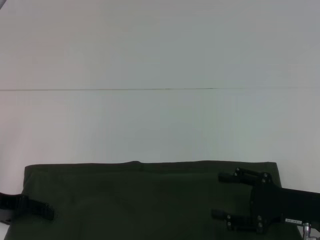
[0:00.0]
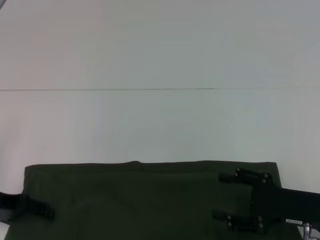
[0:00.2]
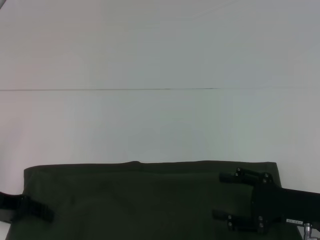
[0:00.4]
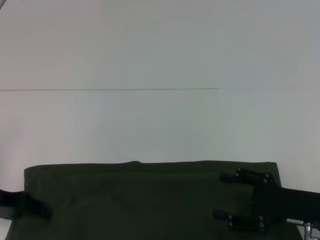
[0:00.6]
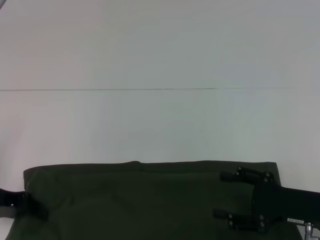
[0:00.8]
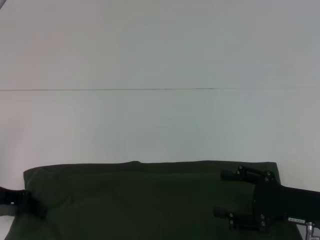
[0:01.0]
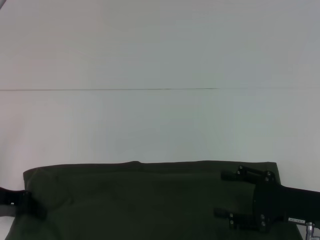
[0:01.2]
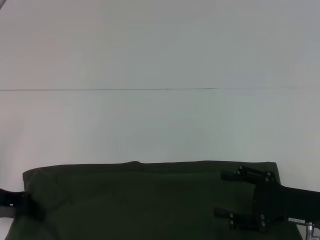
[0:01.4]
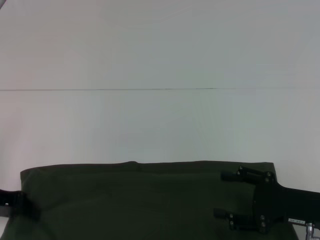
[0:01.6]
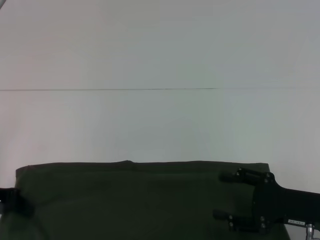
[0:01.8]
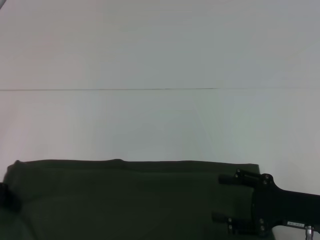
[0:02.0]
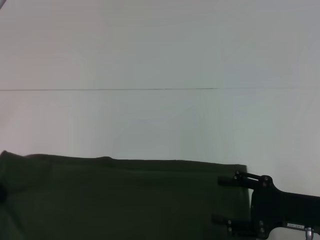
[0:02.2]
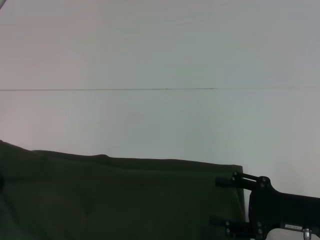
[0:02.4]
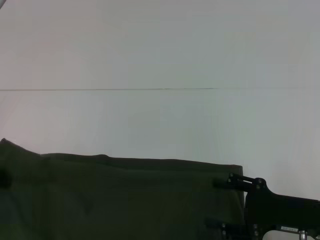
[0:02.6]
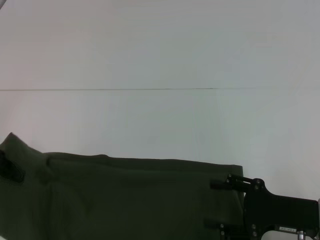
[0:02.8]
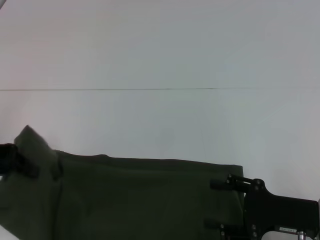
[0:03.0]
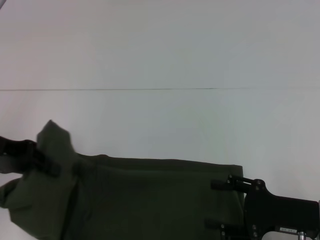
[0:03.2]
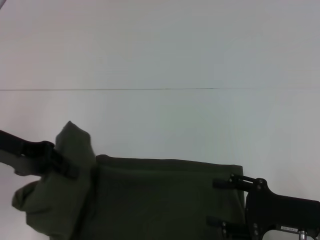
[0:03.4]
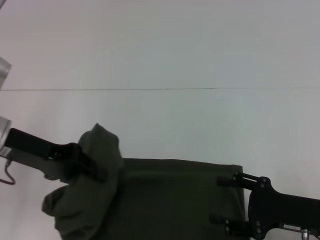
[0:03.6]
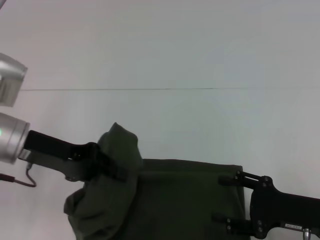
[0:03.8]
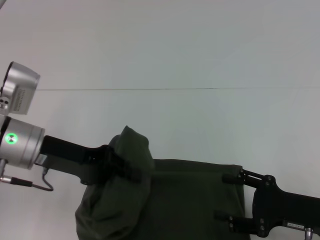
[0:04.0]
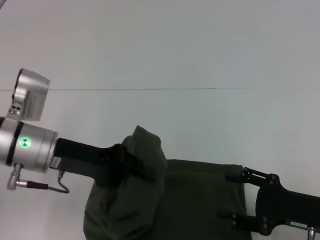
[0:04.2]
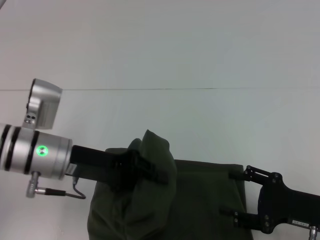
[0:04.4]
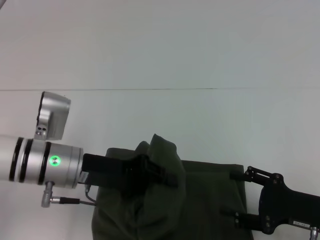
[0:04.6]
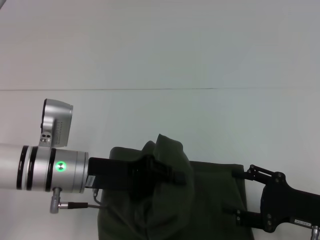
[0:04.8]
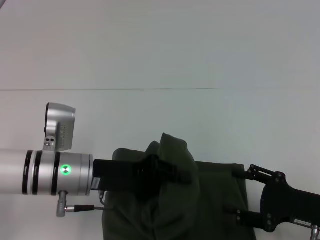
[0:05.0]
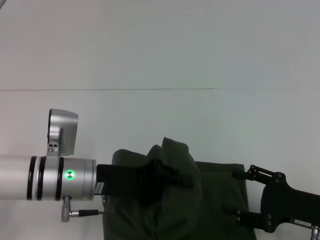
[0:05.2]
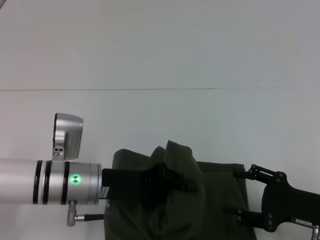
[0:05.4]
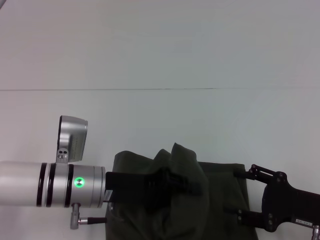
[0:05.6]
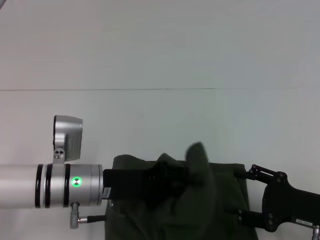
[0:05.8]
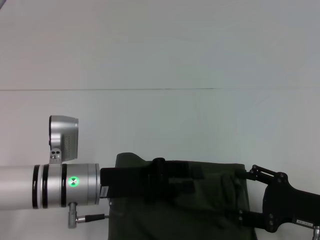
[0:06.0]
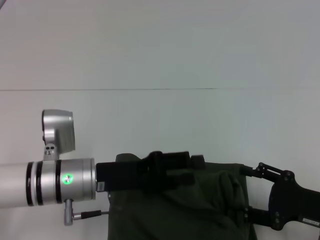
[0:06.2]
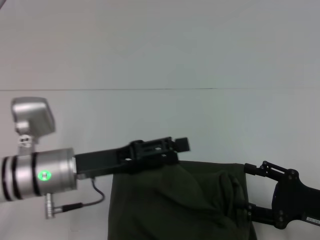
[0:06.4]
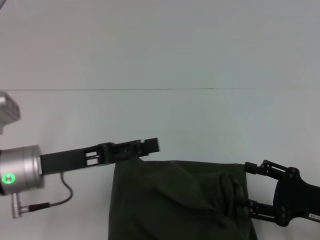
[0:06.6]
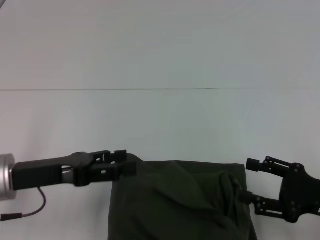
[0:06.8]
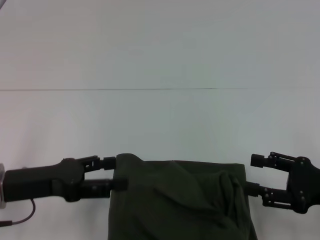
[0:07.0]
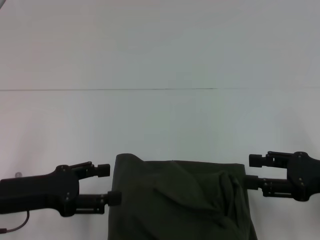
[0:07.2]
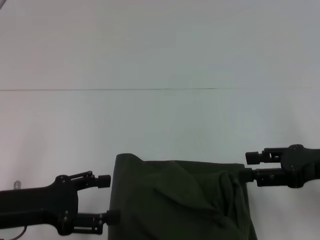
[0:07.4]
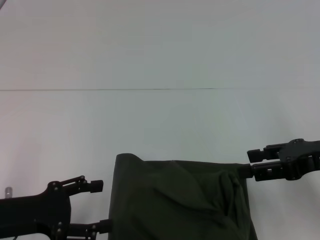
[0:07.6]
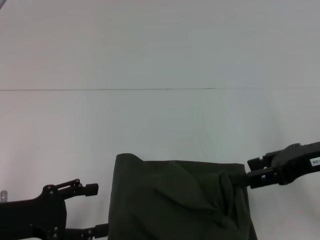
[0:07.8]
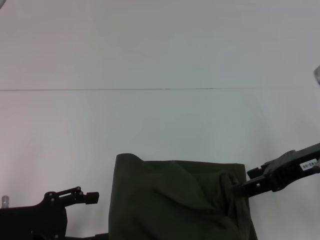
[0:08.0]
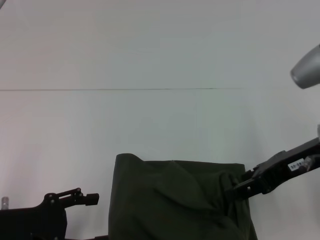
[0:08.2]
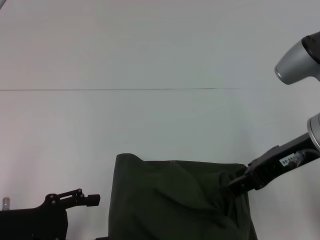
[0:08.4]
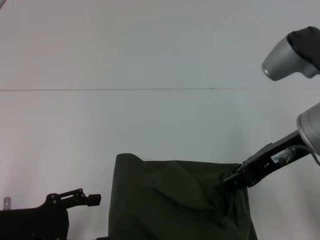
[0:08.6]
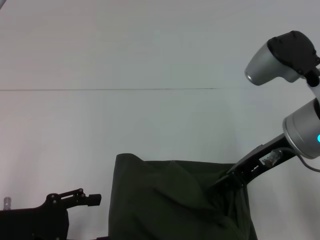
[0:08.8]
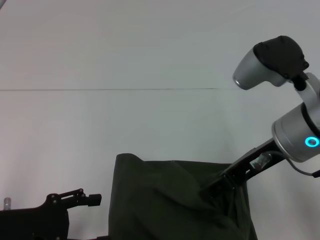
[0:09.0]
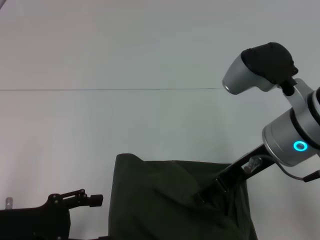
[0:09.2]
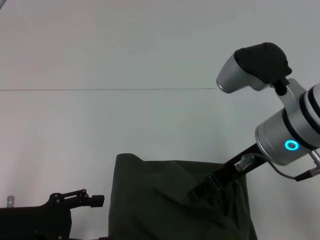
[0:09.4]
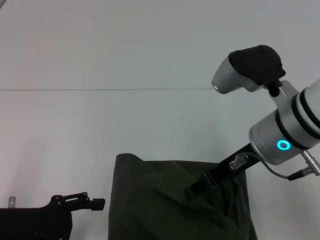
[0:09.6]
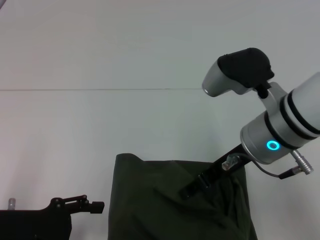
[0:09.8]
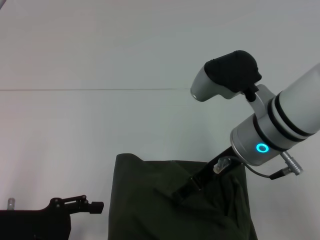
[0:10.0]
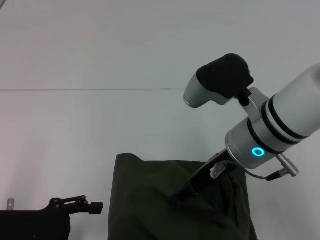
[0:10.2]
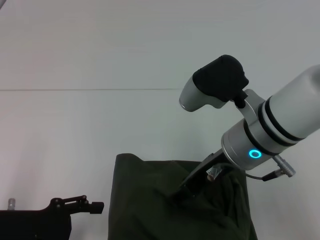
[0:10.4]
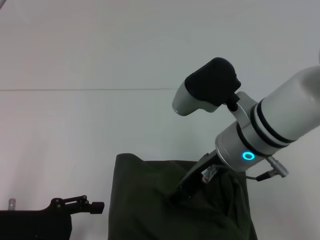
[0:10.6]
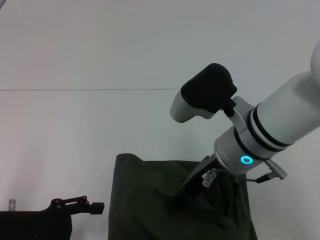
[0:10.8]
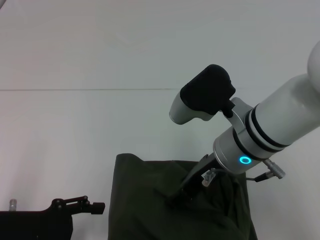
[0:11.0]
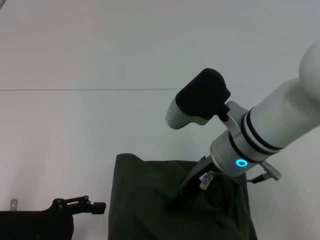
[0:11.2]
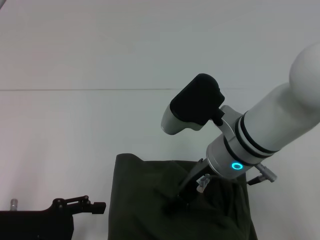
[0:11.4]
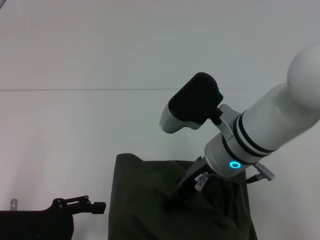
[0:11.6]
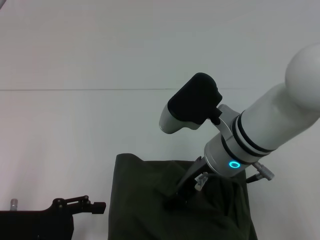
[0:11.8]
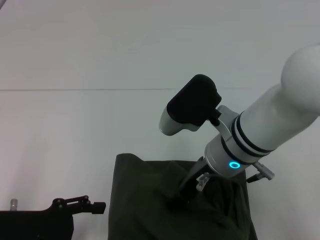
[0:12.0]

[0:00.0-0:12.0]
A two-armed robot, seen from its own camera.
Step, 0:00.0 to 0:06.4: Fold the clothes with your left hand.
0:00.0 to 0:01.6: The left gripper closes up.
0:01.6 to 0:03.0: The left gripper goes approximately 10 cm upward.
0:03.0 to 0:04.4: The left gripper travels to the right by about 15 cm.
0:04.4 to 0:06.0: The left gripper goes about 5 cm downward, and opens its fingers.
0:06.0 to 0:07.6: The right gripper is displaced upward by approximately 15 cm. The left gripper heads to the left and backward, covering about 15 cm, and opens its fingers.
0:07.6 to 0:09.0: The right gripper travels to the left by about 10 cm.
0:09.0 to 0:10.4: The right gripper is displaced to the left by about 5 cm.
0:10.4 to 0:12.0: The grippers stay close to where they were, moving slightly.

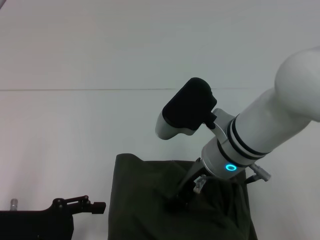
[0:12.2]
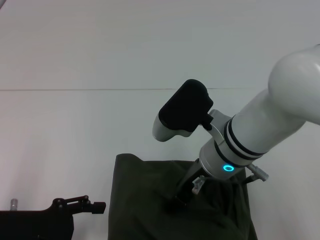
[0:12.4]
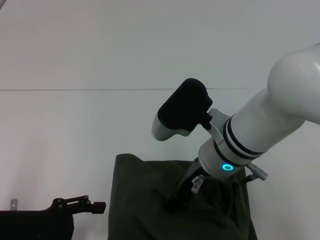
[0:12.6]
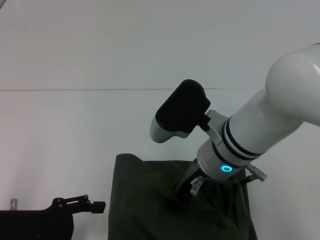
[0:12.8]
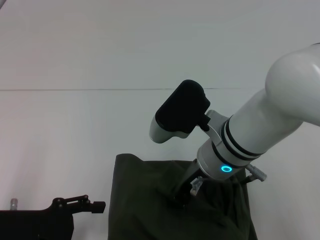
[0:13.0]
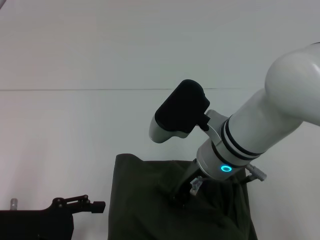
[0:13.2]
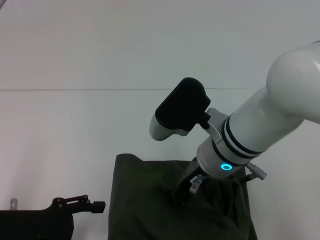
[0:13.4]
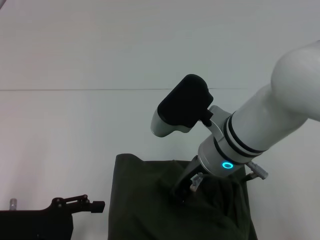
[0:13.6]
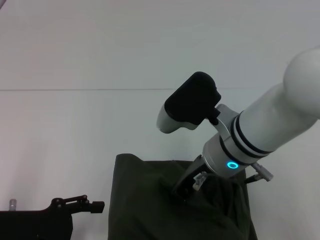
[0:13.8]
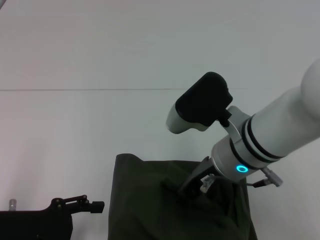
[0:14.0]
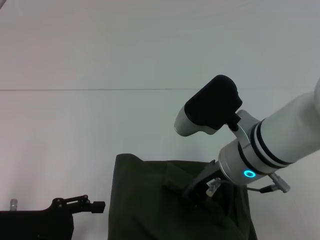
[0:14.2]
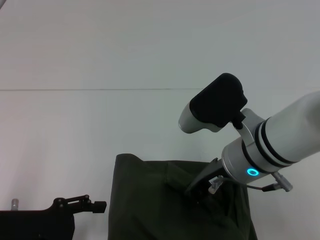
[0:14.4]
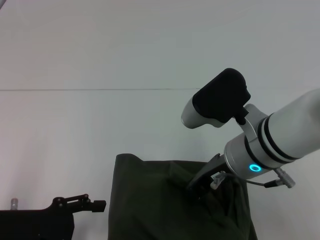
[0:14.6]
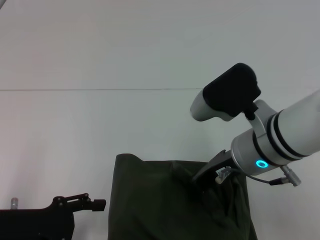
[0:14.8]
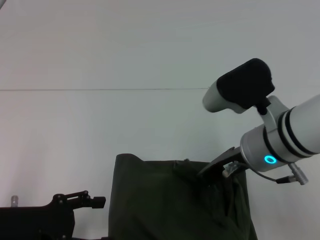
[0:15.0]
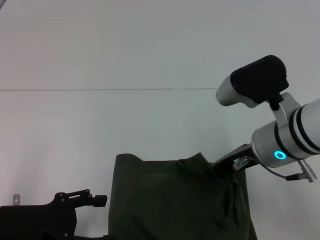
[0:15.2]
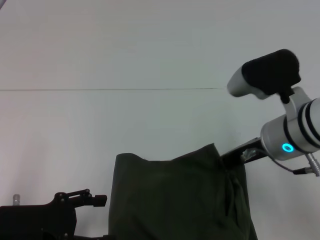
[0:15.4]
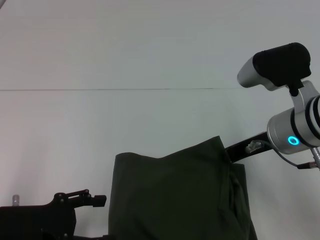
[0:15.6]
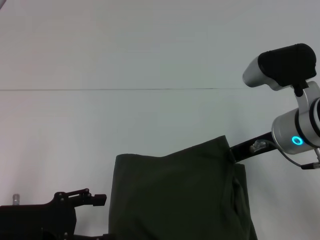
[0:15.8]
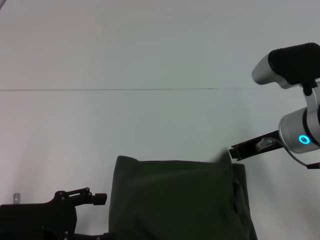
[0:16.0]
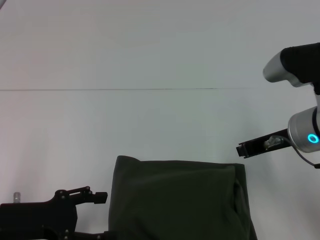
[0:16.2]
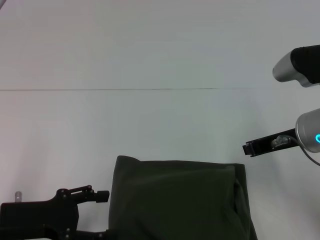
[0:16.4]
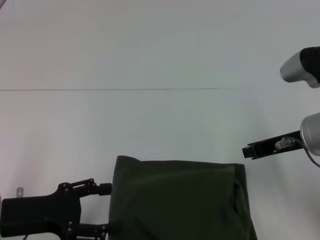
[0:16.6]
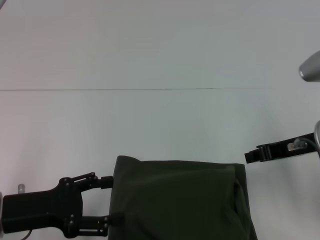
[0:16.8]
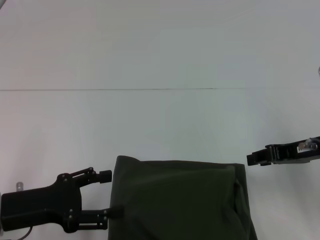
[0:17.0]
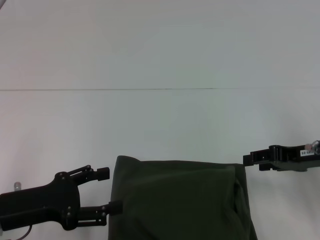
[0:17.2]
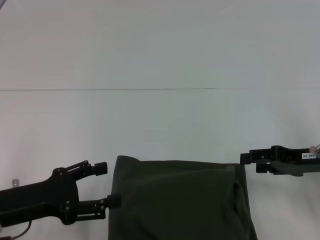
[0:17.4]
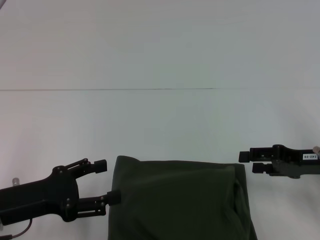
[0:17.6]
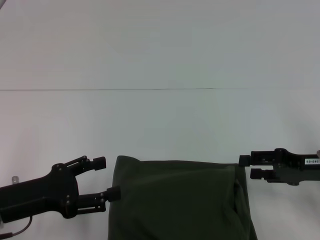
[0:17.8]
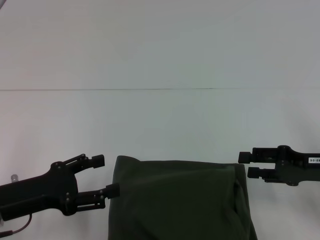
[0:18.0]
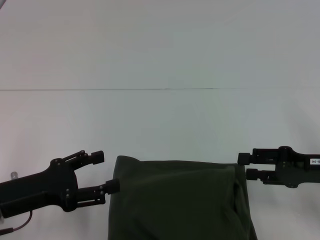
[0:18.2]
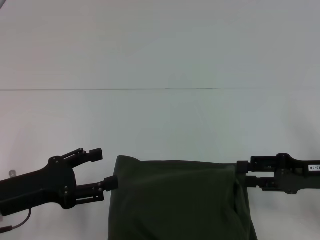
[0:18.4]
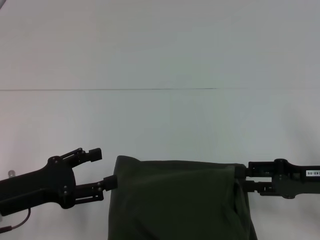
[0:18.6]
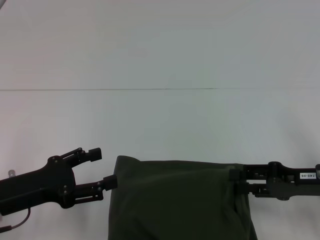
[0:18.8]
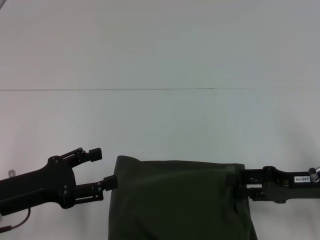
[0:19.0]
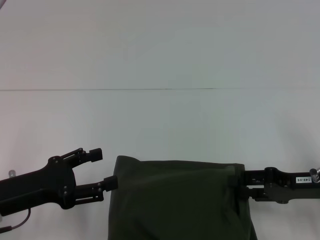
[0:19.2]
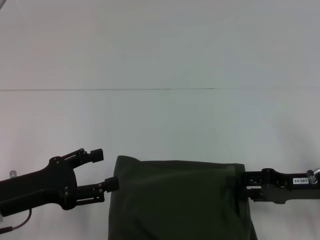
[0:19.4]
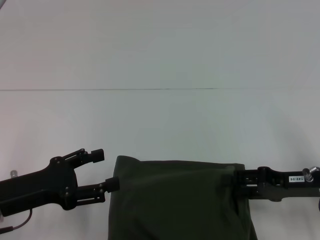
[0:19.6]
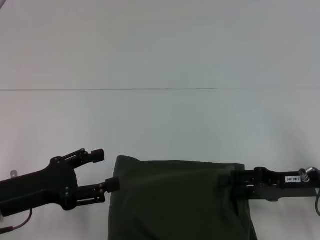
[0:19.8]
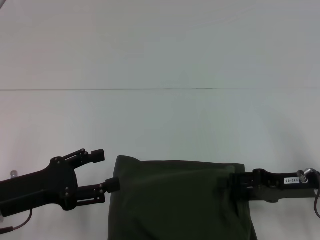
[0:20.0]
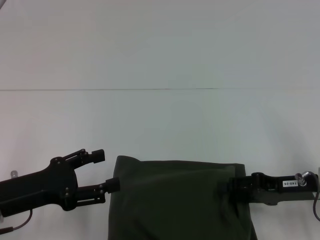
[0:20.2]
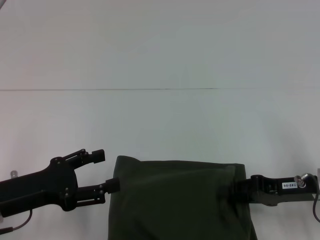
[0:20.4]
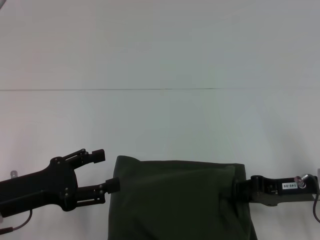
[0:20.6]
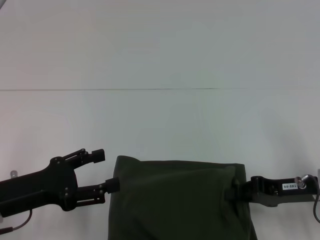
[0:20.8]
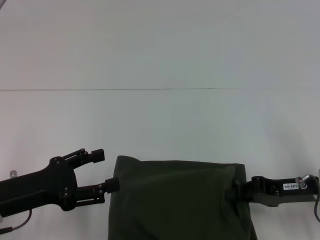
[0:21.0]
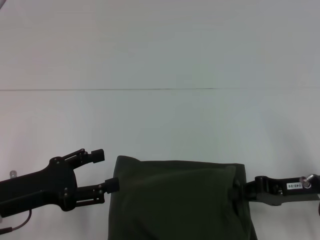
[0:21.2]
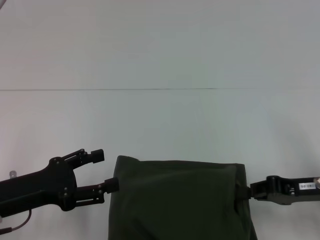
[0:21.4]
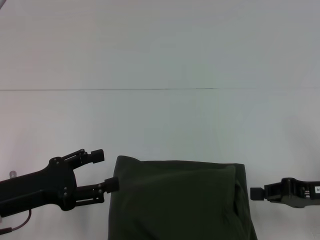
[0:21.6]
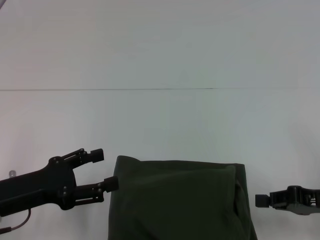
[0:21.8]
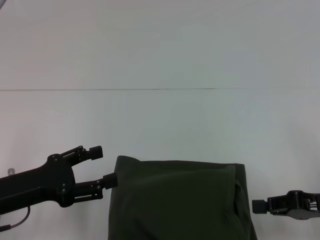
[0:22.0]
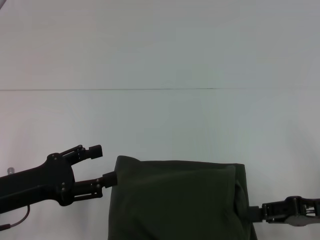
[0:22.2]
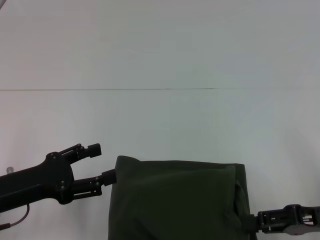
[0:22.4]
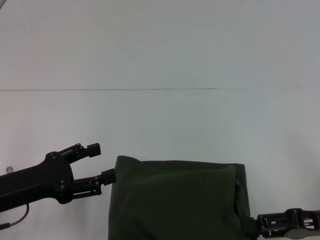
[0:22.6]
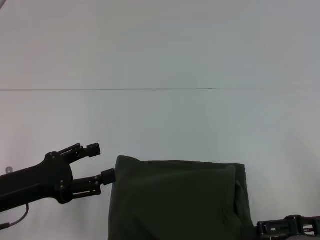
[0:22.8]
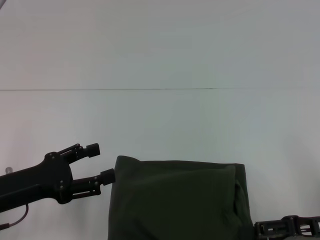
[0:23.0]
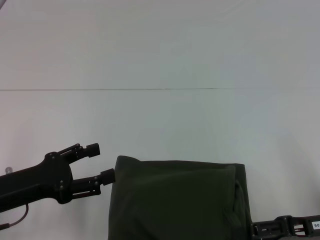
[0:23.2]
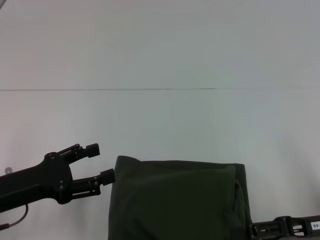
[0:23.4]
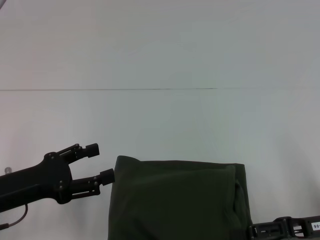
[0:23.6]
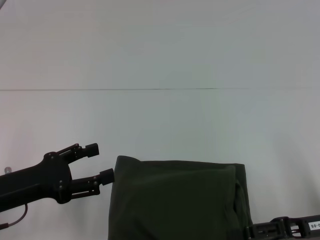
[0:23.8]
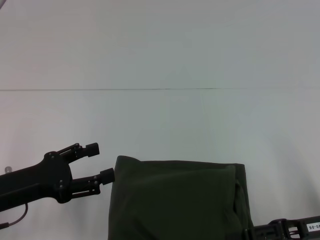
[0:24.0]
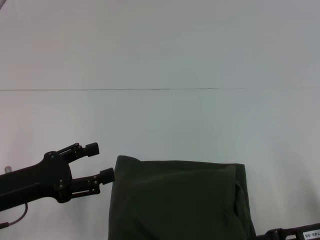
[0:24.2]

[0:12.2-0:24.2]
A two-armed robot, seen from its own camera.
0:12.2 to 0:13.8: The right gripper closes its fingers.
0:13.8 to 0:15.2: The right gripper heads to the right, covering roughly 5 cm.
0:15.2 to 0:16.6: The right gripper is displaced to the right by some 5 cm.
0:16.6 to 0:18.2: The right gripper heads to the right and downward, covering approximately 10 cm, and opens up.
0:18.2 to 0:19.8: The grippers stay close to where they were, moving slightly.
0:19.8 to 0:21.2: The right gripper closes.
0:21.2 to 0:22.6: The right gripper moves about 5 cm, and opens its fingers.
0:22.6 to 0:24.2: The grippers stay close to where they were, moving slightly.
